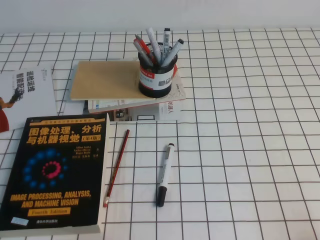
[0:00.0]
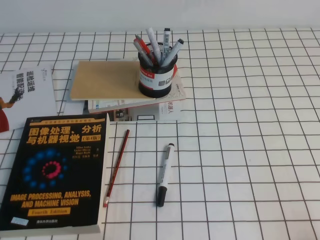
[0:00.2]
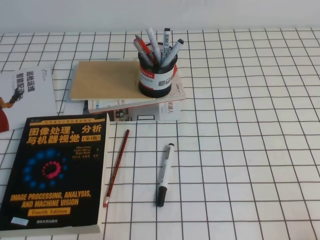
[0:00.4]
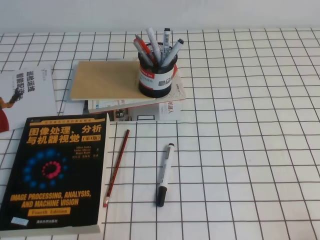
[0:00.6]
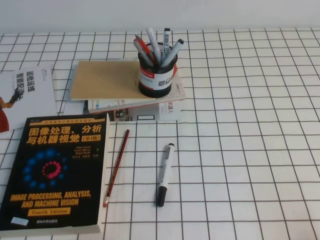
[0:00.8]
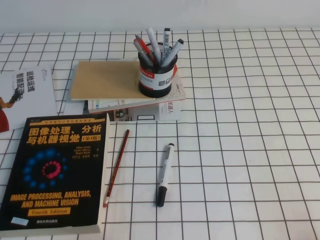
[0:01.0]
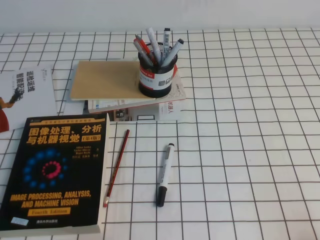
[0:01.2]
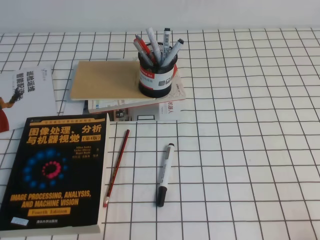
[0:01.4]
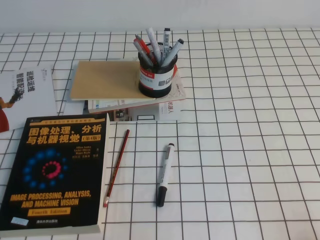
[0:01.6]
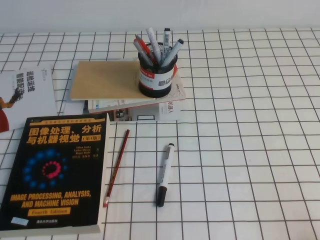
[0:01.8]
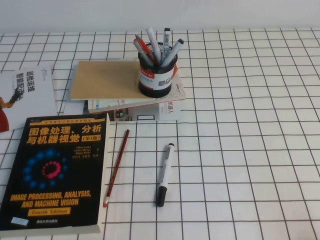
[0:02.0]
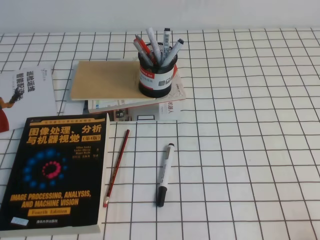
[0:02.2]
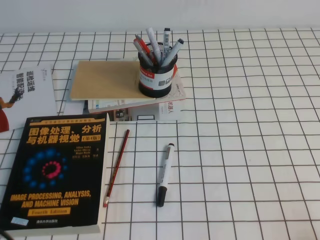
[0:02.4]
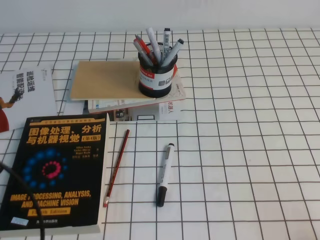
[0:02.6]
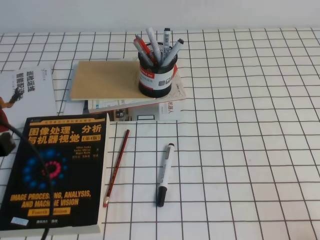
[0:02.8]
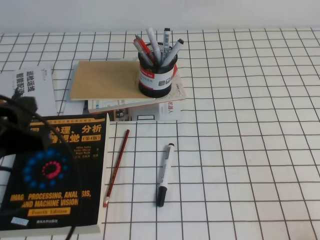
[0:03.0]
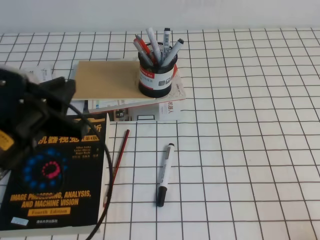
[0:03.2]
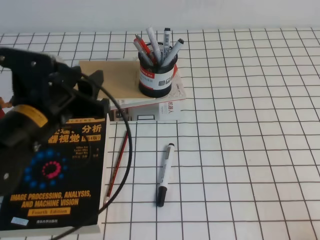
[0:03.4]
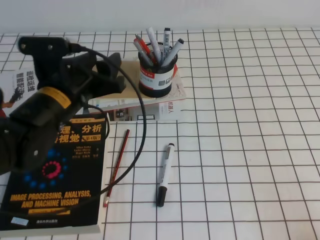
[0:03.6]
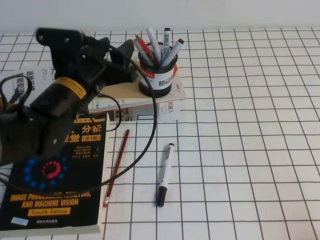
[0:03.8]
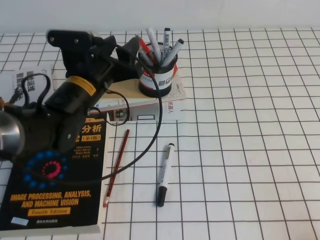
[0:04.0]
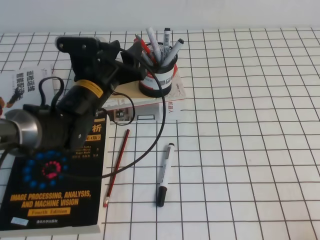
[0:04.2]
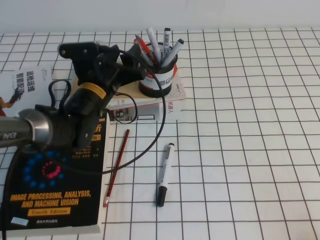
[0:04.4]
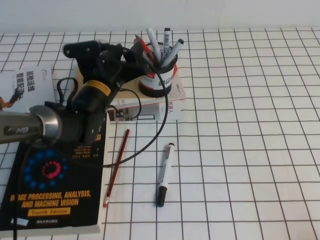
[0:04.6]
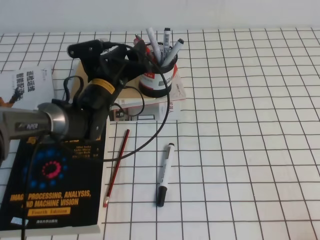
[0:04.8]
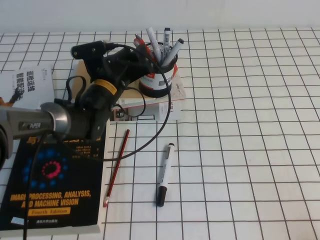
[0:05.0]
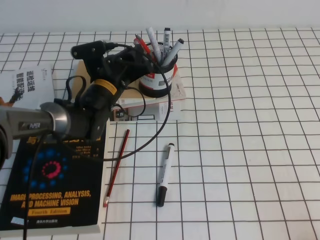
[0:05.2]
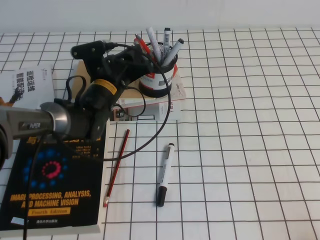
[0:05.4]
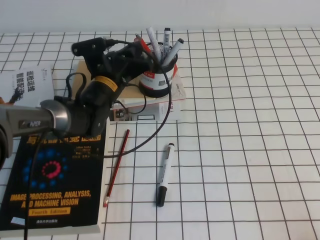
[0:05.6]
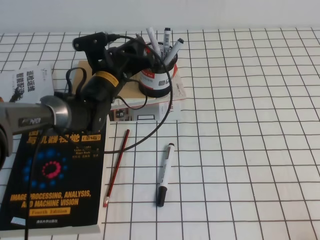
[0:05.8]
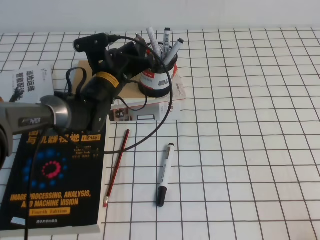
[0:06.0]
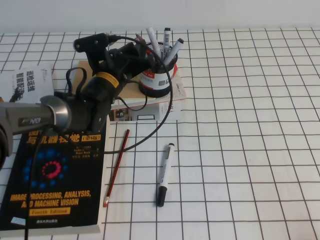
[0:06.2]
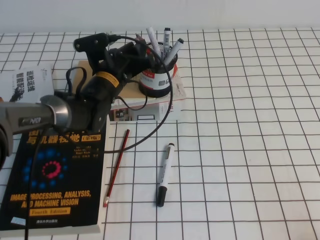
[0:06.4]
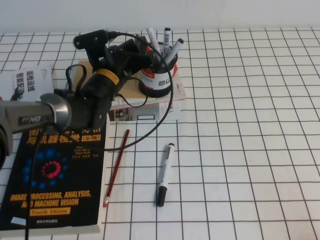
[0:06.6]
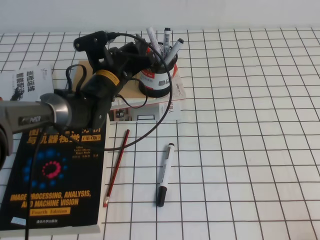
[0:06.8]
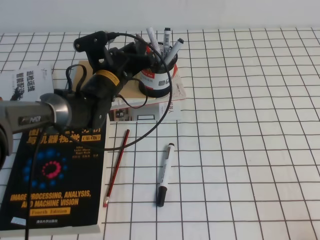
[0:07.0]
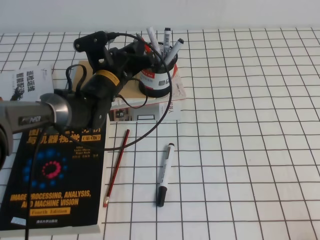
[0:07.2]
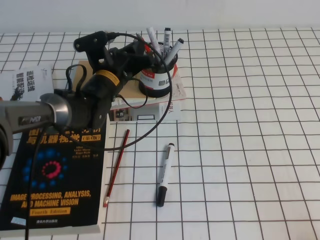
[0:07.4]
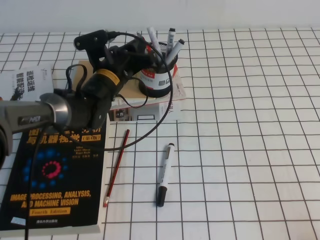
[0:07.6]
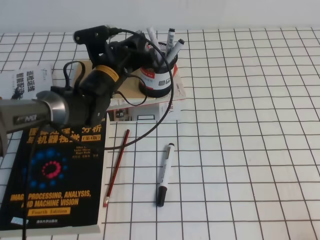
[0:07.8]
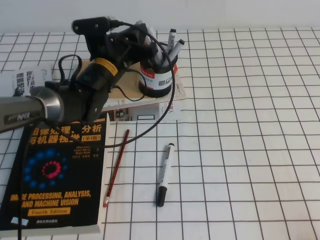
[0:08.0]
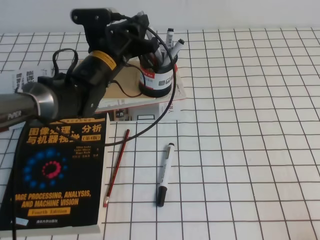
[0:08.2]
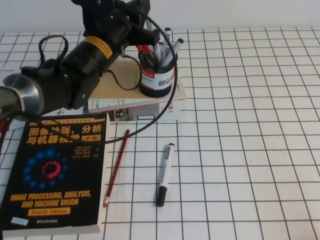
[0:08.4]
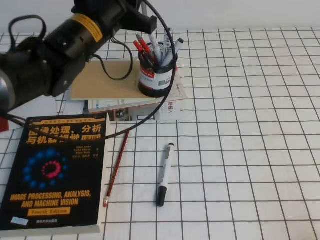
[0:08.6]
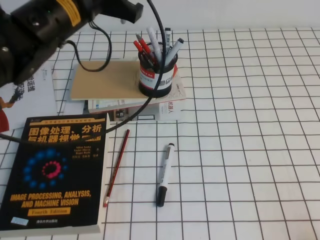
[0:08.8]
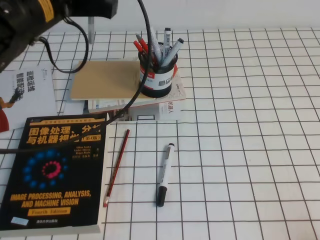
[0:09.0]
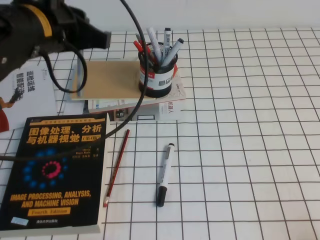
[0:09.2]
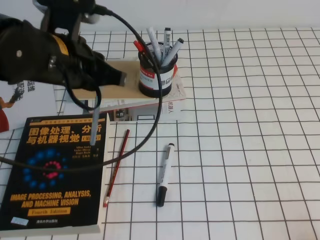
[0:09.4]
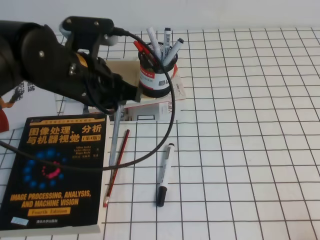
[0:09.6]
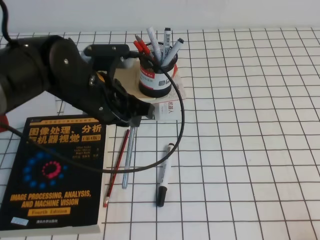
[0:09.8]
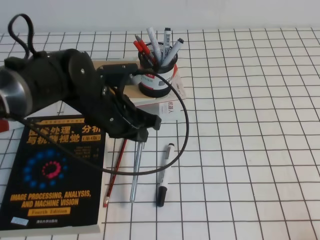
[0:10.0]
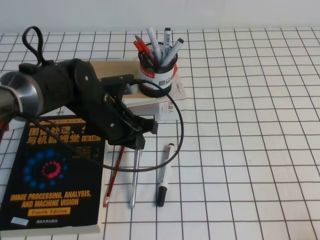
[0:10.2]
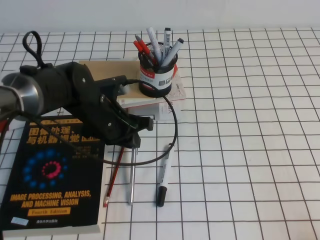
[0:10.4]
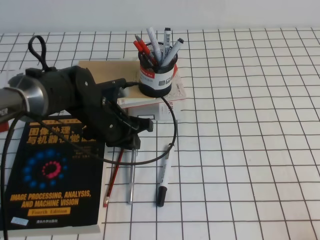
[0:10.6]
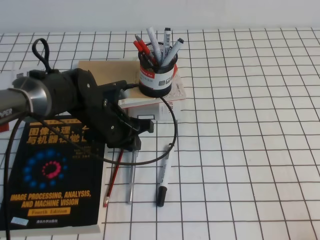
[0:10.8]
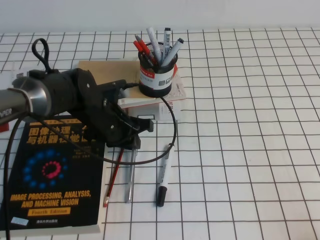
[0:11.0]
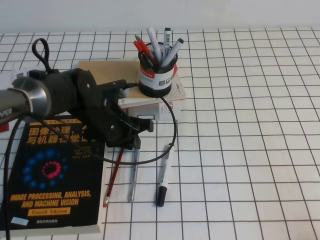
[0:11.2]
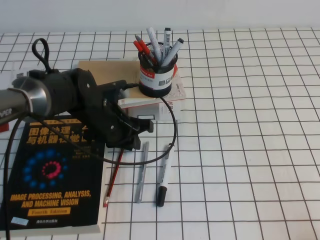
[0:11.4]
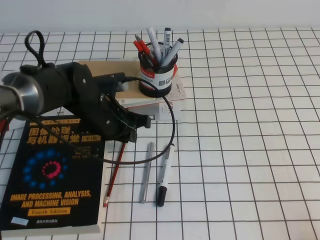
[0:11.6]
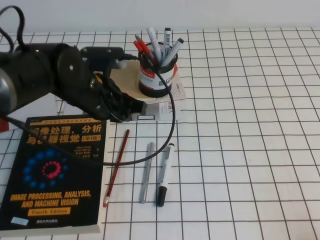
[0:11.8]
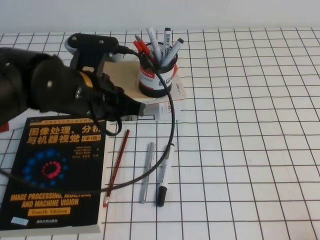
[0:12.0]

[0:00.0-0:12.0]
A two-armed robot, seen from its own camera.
0:01.6 to 0:03.0: The left gripper travels upward and forward by roughly 15 cm.
0:03.0 to 0:04.4: The left gripper heads forward, to the right and downward, covering approximately 25 cm, and opens its fingers.
0:04.4 to 0:06.0: The left gripper goes about 5 cm forward, and closes its fingers.
0:06.0 to 0:07.6: Both grippers stay put.
0:07.6 to 0:09.0: The left gripper moves upward and backward, roughly 20 cm.
0:09.0 to 0:10.4: The left gripper shifts roughly 20 cm downward.
0:10.4 to 0:12.0: The left gripper goes some 5 cm upward.

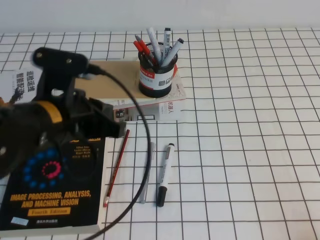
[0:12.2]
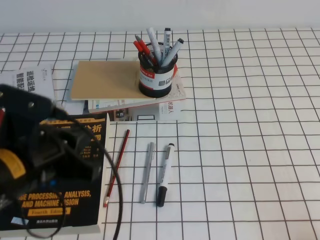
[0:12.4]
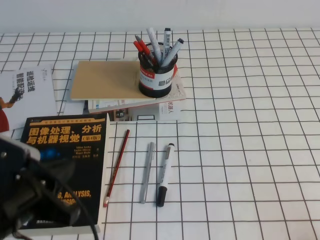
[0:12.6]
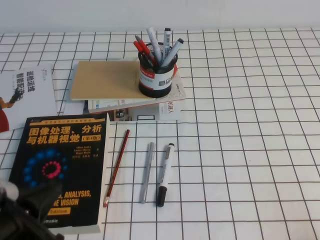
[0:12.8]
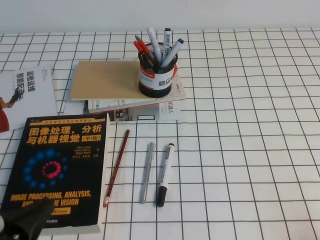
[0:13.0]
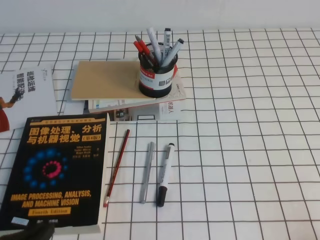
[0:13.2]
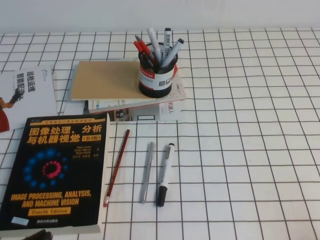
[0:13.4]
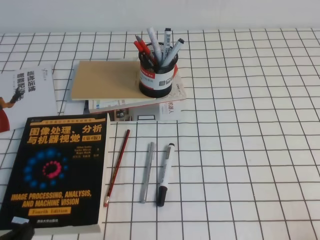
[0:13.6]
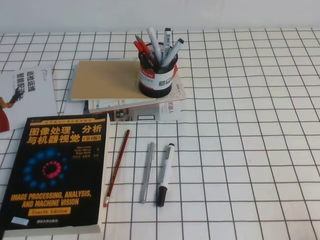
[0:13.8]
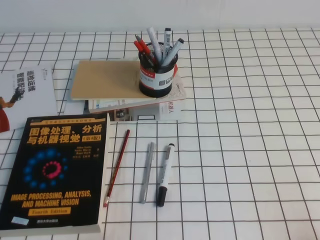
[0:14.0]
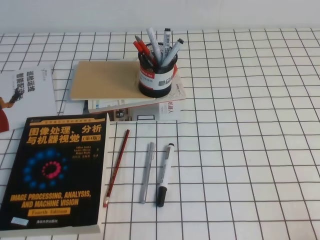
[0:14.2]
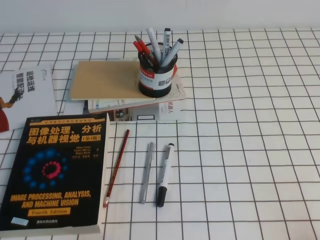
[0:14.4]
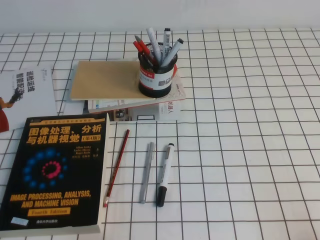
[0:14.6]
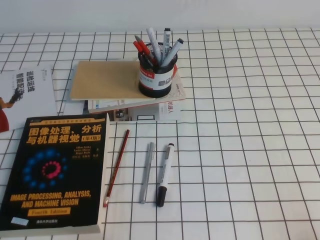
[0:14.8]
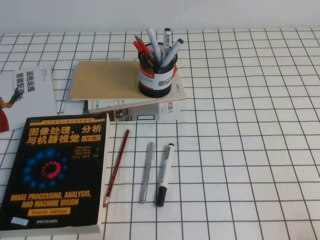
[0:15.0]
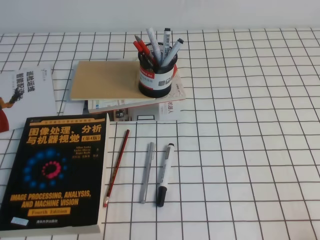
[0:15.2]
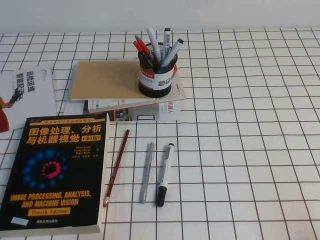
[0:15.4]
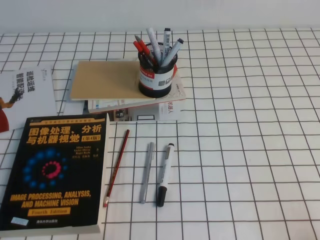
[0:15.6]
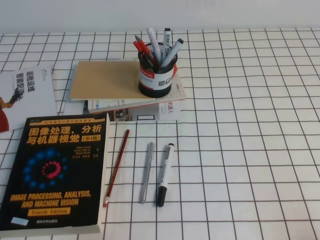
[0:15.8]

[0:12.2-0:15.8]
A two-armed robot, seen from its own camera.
Step, 0:12.2 to 0:15.8: Pick up the pen from the pen holder.
0:12.2 to 0:14.0: The left gripper heads backward, to the left and downward, covering some 30 cm.
0:14.0 to 0:15.8: The grippers make only small movements.
